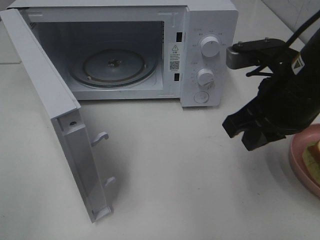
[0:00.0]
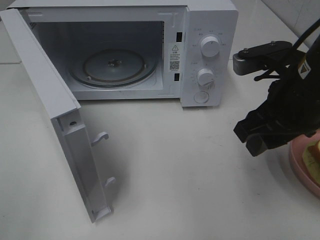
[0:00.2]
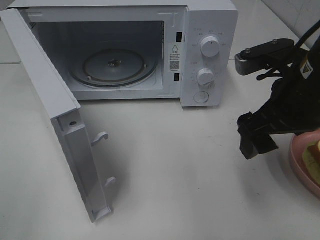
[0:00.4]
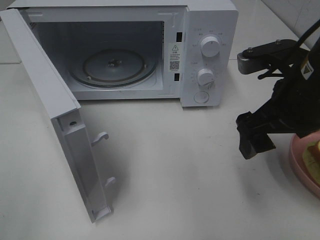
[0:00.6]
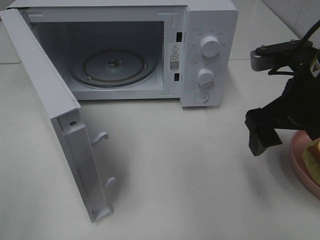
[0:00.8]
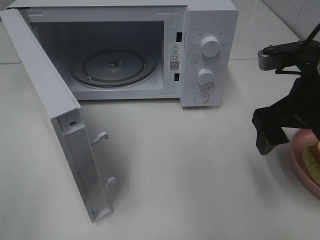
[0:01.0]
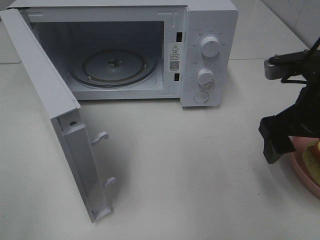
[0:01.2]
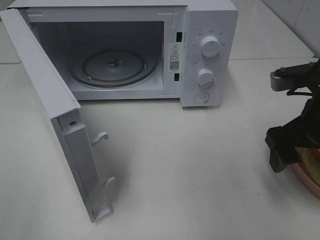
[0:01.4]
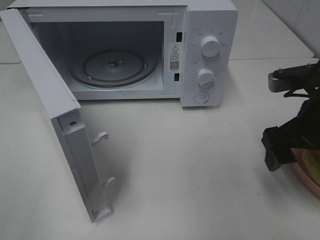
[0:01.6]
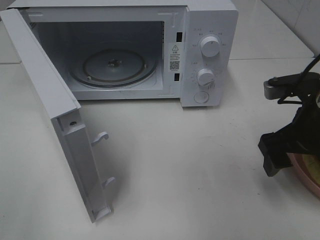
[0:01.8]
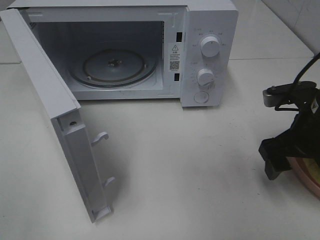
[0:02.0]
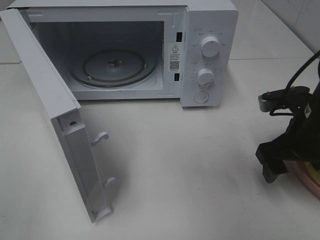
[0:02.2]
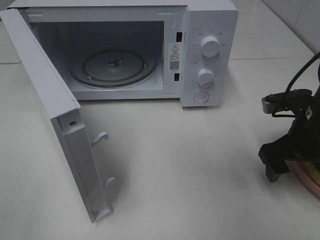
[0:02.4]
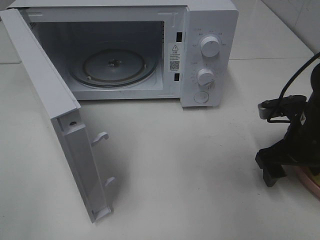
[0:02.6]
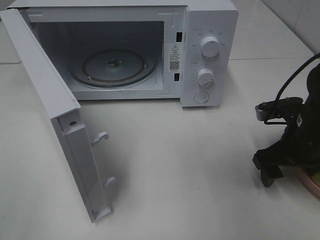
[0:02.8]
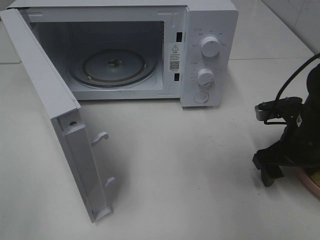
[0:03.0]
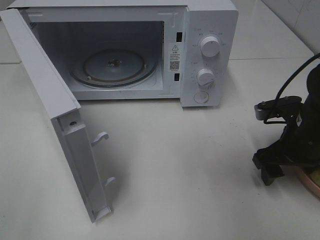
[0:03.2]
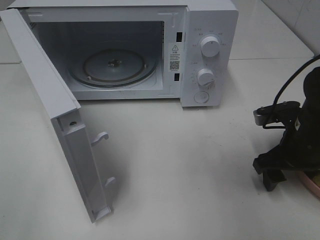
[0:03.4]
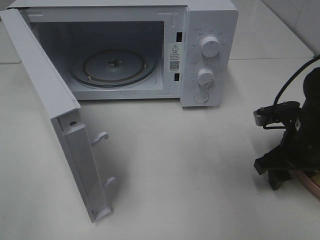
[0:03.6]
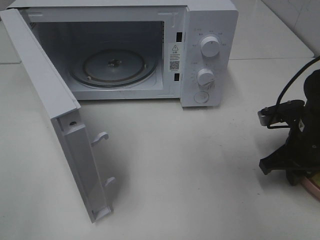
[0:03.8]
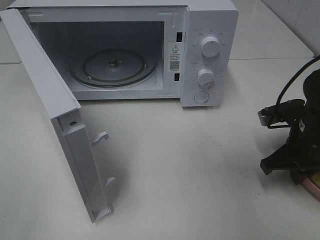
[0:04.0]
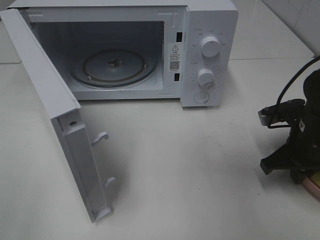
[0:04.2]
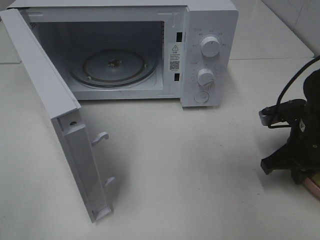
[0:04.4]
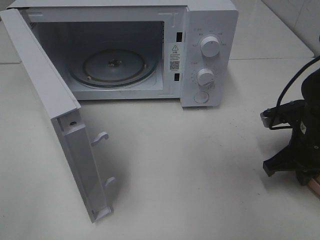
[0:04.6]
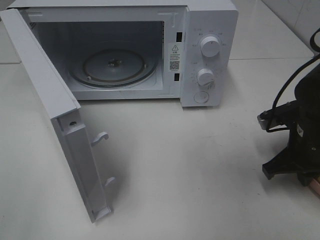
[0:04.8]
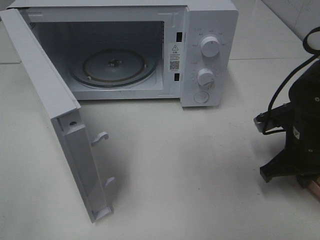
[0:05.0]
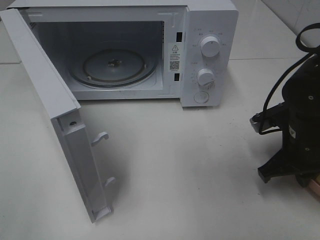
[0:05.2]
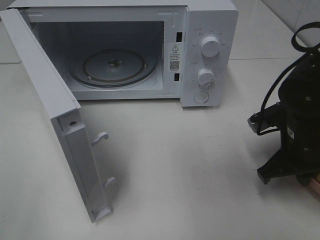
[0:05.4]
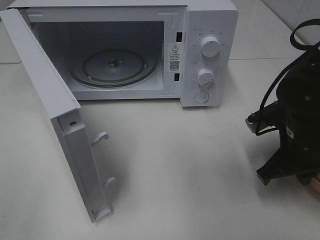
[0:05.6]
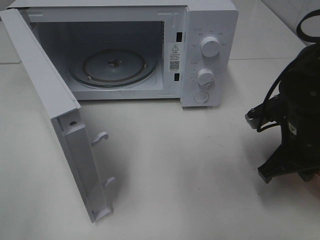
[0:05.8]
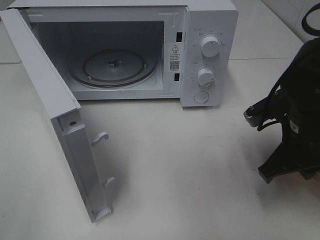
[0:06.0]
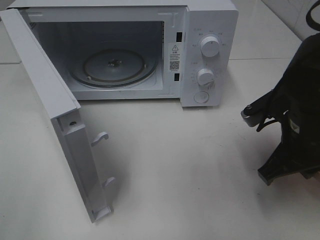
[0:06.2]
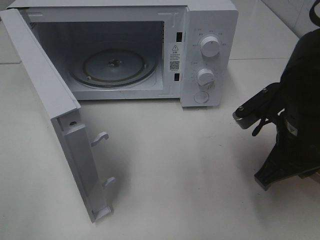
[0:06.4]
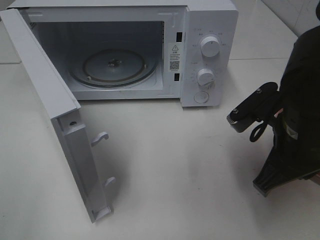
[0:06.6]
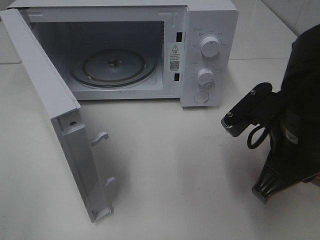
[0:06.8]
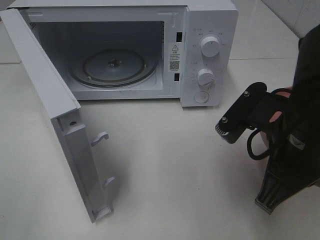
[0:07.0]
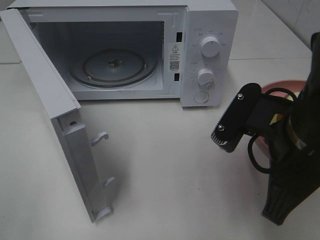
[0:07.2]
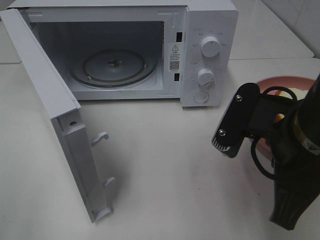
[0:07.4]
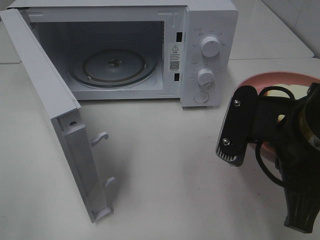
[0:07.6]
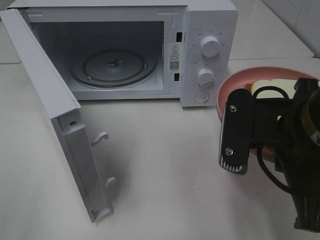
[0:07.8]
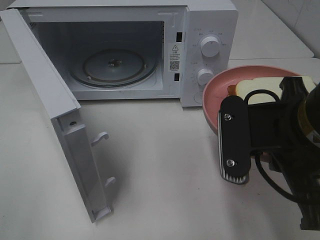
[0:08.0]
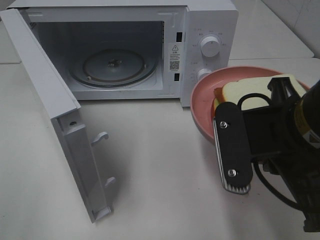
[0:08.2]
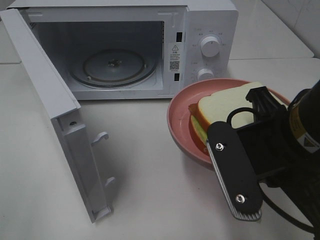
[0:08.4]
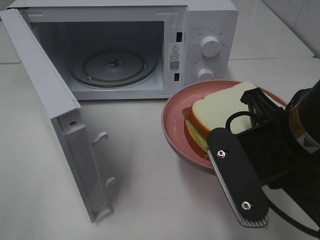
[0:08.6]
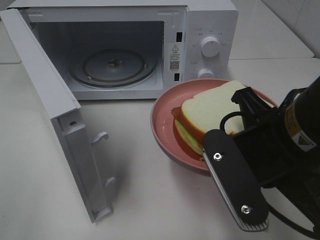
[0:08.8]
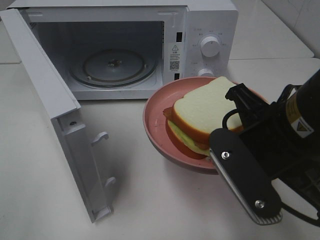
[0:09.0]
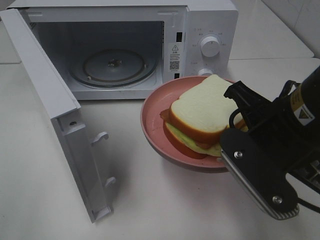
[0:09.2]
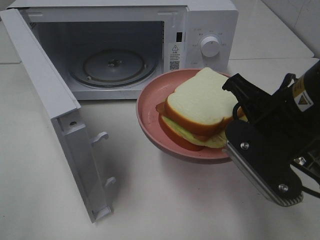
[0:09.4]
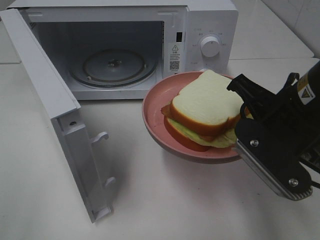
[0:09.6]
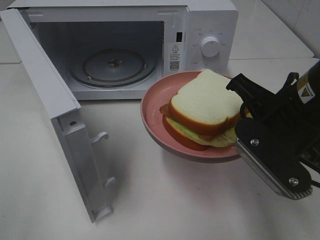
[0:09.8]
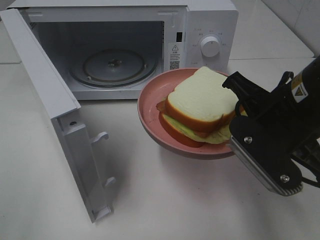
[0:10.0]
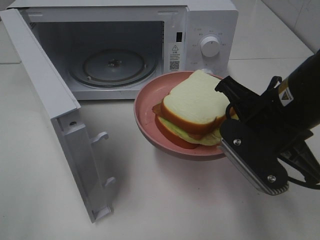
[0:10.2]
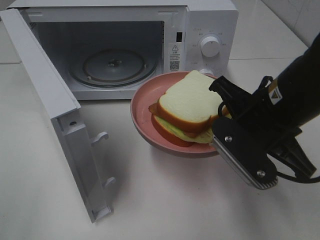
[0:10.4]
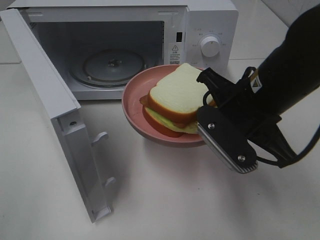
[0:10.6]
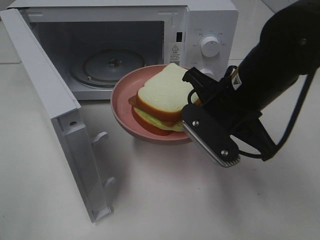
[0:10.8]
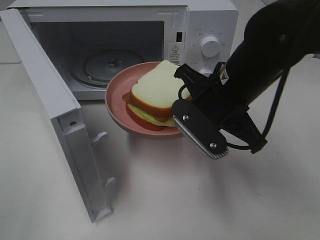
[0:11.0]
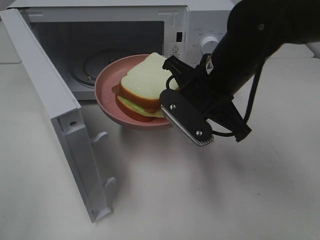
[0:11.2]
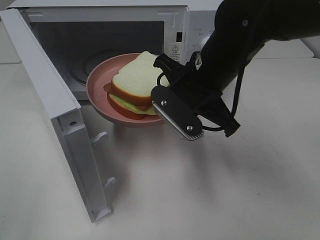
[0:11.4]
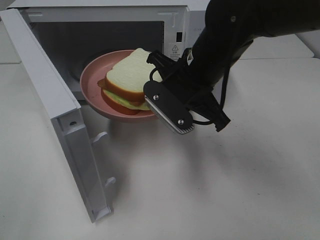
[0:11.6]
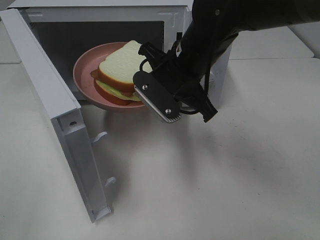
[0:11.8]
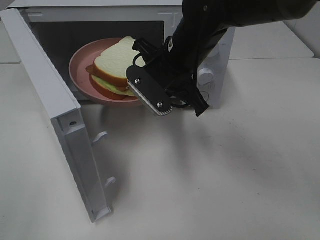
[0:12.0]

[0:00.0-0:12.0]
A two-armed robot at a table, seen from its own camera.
Task of the whole recording: Heat Sandwich.
Step, 0:00.0 to 0:04.6: Right hand: grab the plate with the sandwich.
0:00.0 to 0:01.6: The right gripper goes roughly 5 cm to the right, and opens up.
0:01.6 to 0:03.0: The right gripper heads downward, covering some 10 cm.
0:03.0 to 0:04.4: The right gripper closes its fingers.
0:04.4 to 0:06.0: The right gripper shifts by about 5 cm.
0:06.0 to 0:07.6: The right gripper goes about 10 cm backward, upward and to the left.
0:09.0 to 0:10.4: The right gripper moves forward, some 5 cm.
0:10.4 to 0:12.0: The right gripper is displaced forward and to the left by some 15 cm.

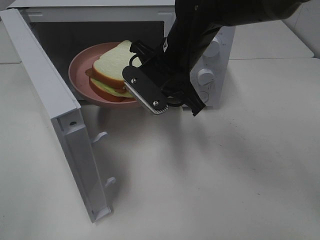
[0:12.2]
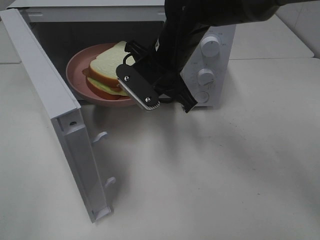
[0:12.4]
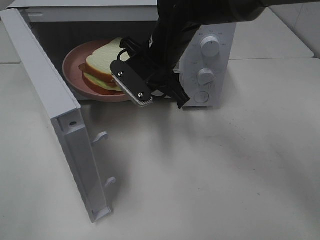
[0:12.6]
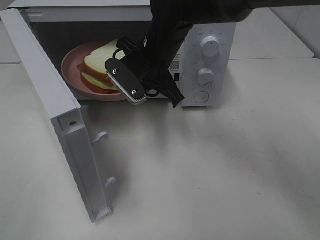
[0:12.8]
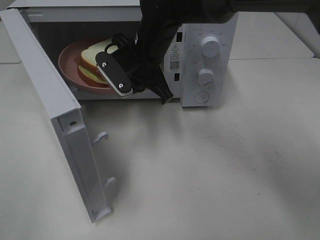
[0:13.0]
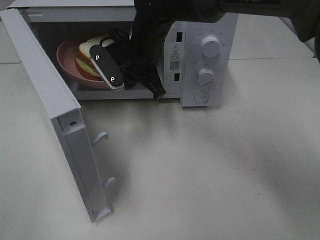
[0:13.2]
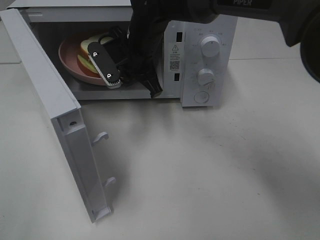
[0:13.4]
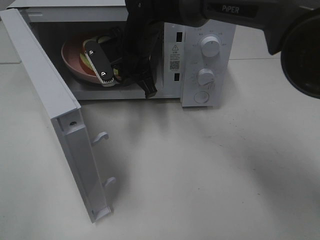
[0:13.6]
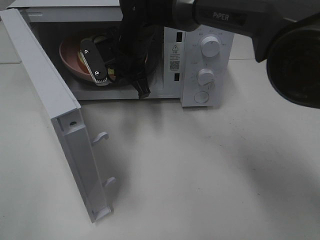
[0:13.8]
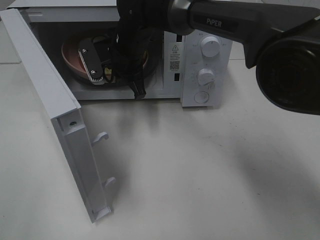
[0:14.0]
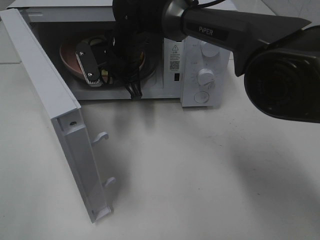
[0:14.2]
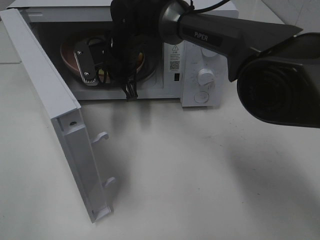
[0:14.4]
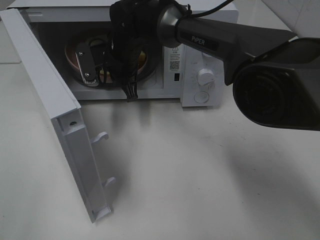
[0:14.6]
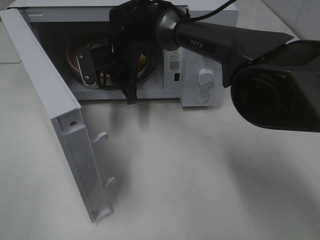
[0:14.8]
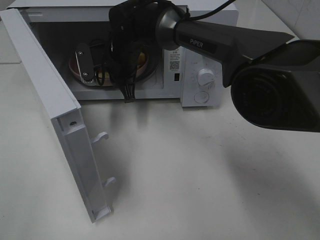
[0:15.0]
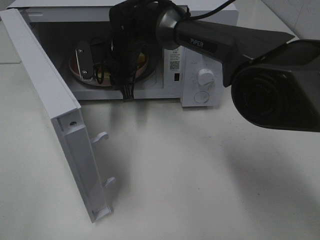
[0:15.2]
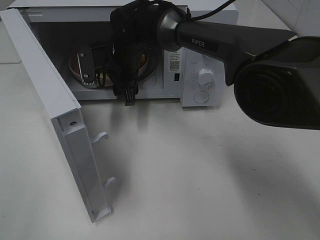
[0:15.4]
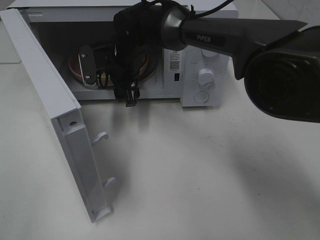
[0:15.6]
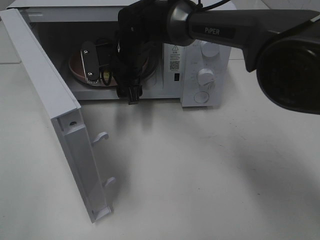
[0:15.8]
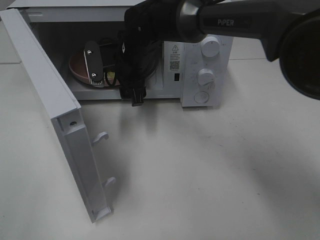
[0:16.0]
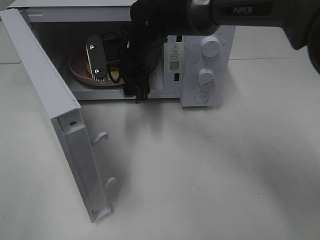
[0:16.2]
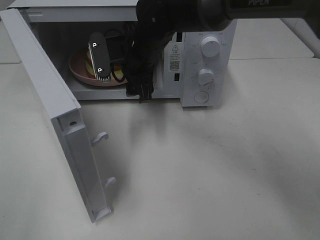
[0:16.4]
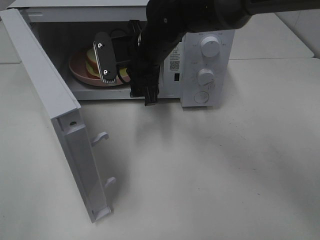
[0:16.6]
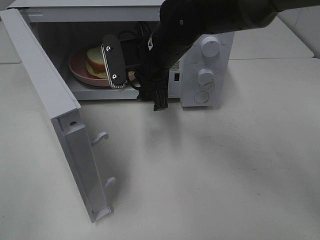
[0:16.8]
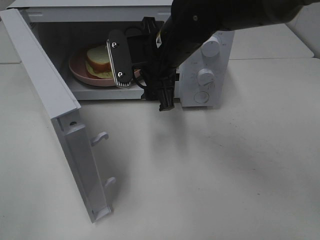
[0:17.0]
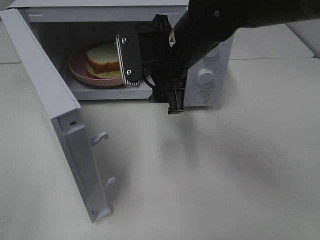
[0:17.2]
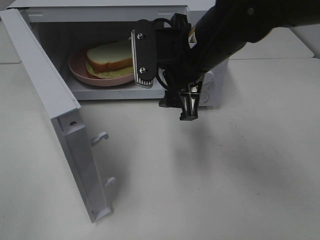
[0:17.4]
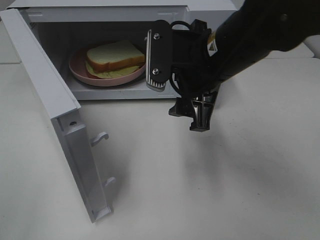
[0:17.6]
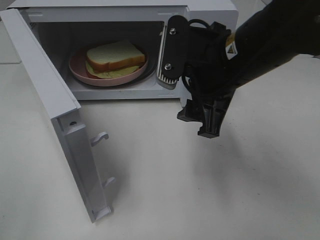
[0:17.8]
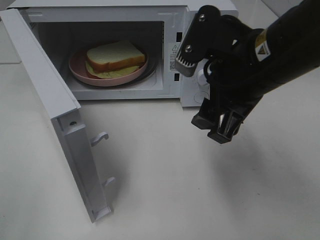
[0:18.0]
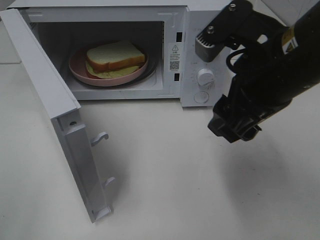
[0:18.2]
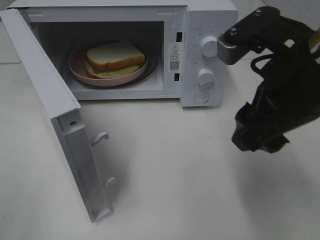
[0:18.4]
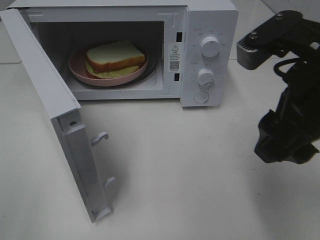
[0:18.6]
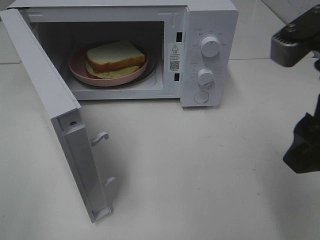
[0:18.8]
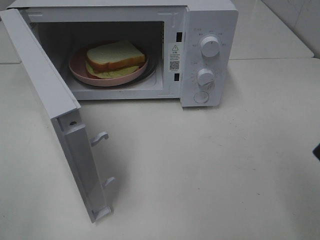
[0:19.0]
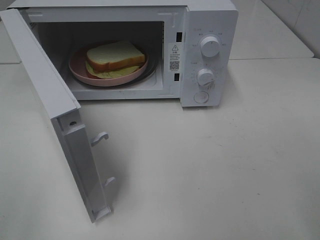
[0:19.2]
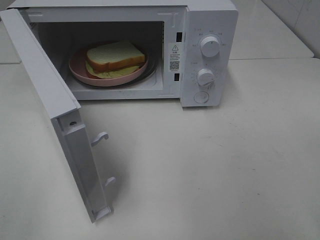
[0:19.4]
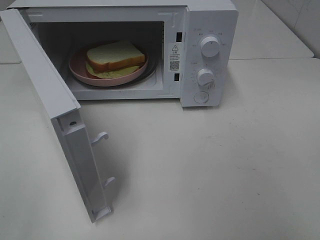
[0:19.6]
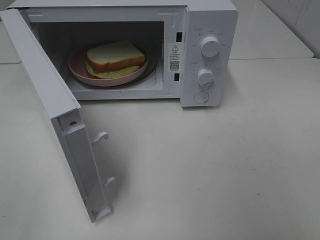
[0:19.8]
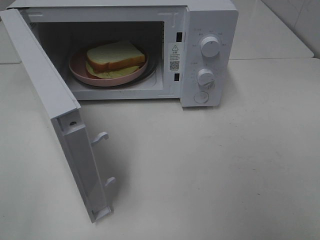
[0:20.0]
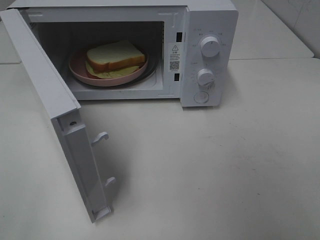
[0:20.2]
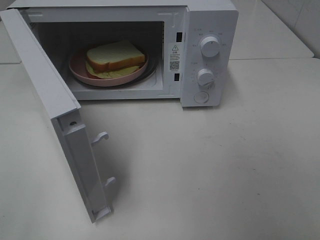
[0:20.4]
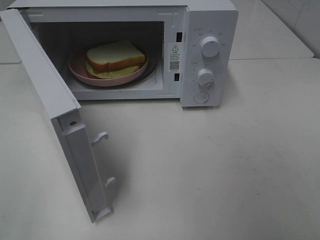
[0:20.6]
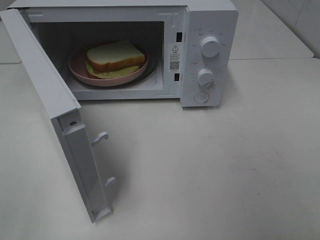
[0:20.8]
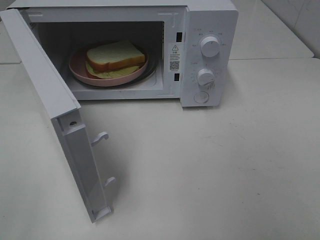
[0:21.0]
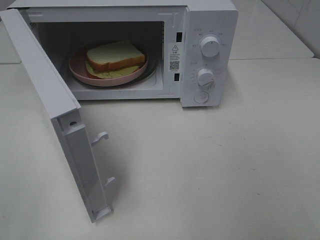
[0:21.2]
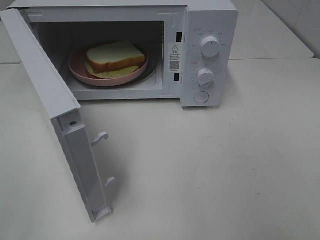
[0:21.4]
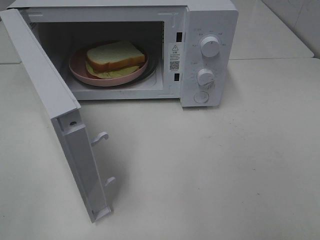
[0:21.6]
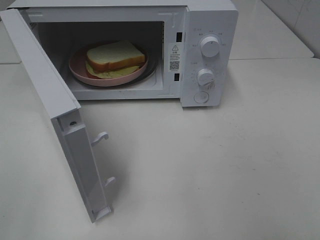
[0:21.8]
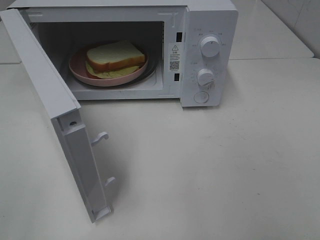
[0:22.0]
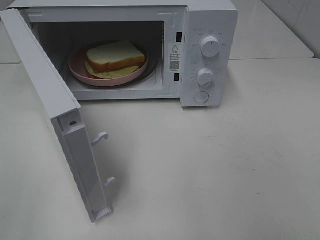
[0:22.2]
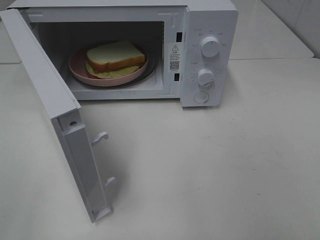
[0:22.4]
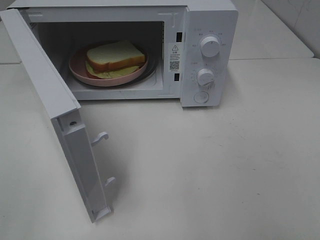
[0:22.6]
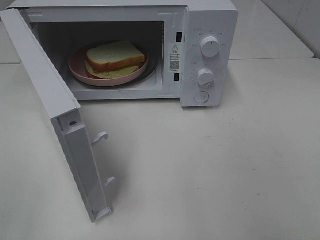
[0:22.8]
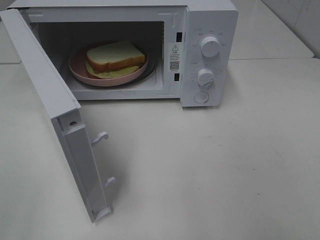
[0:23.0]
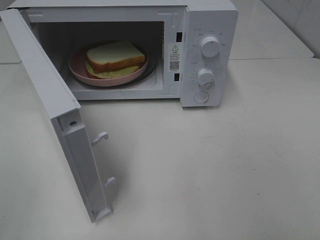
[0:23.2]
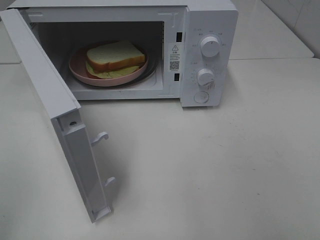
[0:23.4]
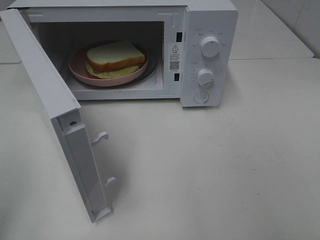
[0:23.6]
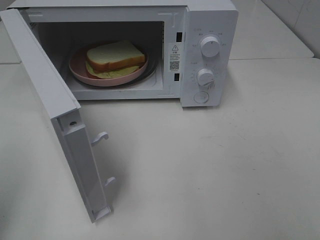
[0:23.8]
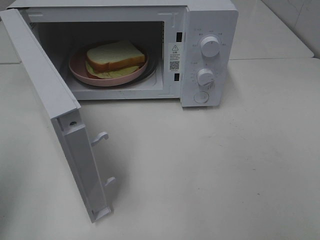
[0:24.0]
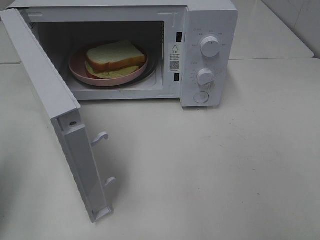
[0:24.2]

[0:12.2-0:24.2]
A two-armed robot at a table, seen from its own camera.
Task of the whole recording: Heat Sandwich.
Step, 0:12.2 to 0:16.6: Right hand: place the plate in the microwave.
0:12.2 to 0:13.8: The right gripper moves forward and to the left, approximately 10 cm.
0:13.8 to 0:15.2: The right gripper opens its fingers.
0:15.2 to 0:16.6: The right gripper moves backward and to the right, some 10 cm.
0:16.6 to 0:18.2: The right gripper shifts some 20 cm backward, to the right and upward.
0:18.2 to 0:19.8: The right gripper shifts about 20 cm backward and to the right.
0:21.2 to 0:22.6: Both grippers stay about where they are.
0:22.6 to 0:24.2: The left gripper moves forward, roughly 15 cm, and closes.
